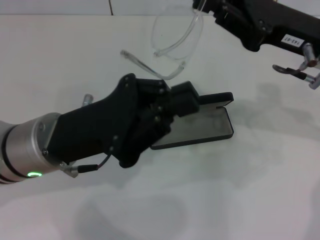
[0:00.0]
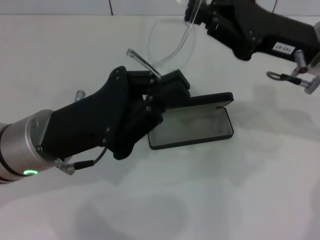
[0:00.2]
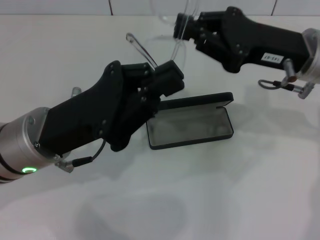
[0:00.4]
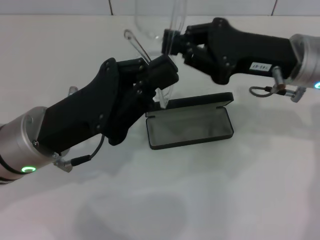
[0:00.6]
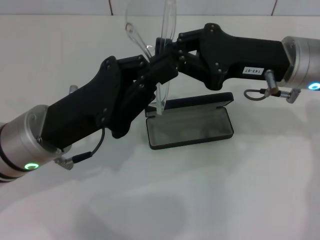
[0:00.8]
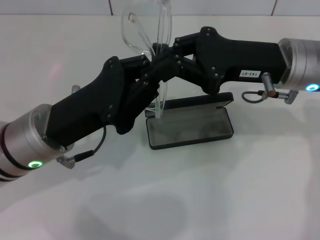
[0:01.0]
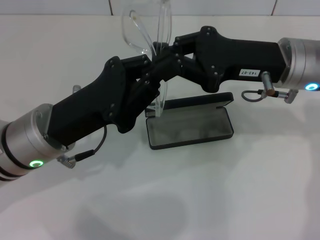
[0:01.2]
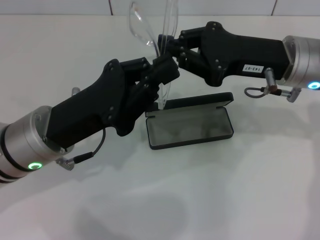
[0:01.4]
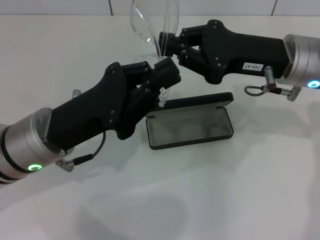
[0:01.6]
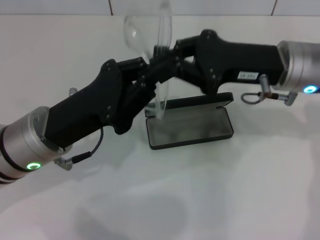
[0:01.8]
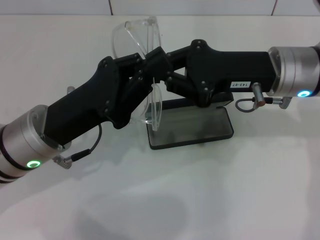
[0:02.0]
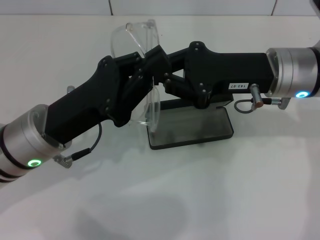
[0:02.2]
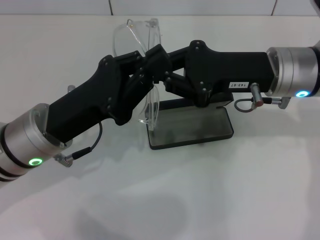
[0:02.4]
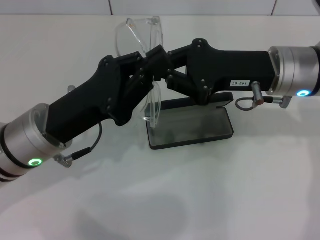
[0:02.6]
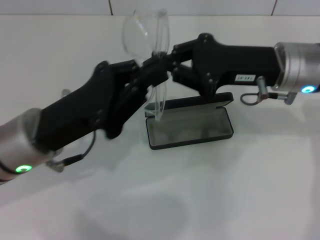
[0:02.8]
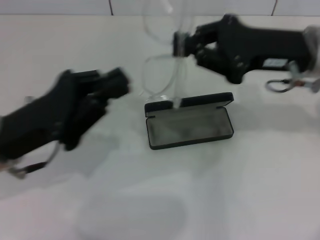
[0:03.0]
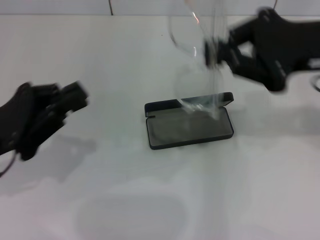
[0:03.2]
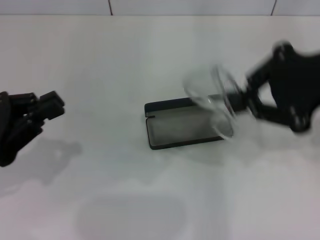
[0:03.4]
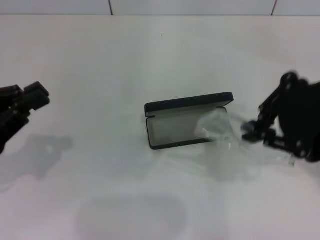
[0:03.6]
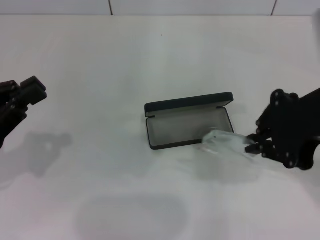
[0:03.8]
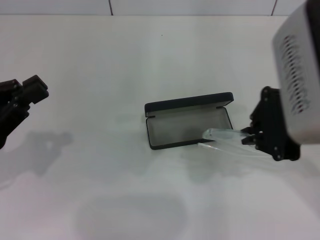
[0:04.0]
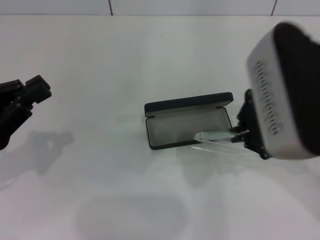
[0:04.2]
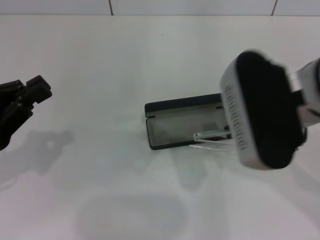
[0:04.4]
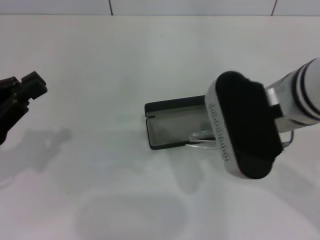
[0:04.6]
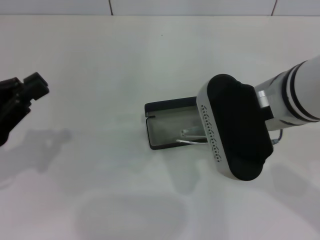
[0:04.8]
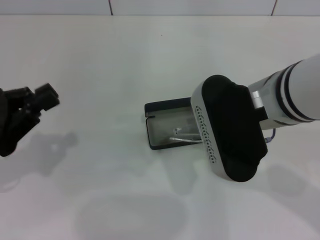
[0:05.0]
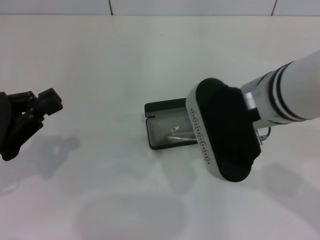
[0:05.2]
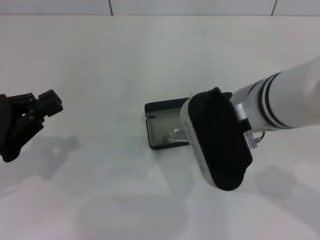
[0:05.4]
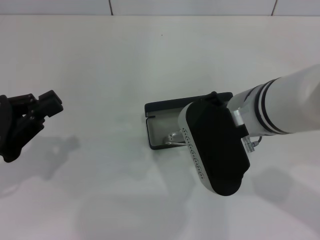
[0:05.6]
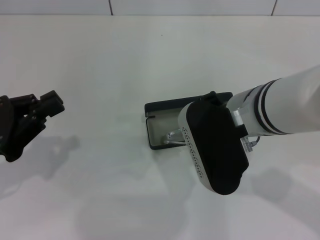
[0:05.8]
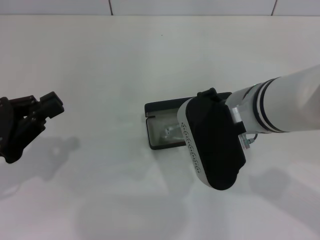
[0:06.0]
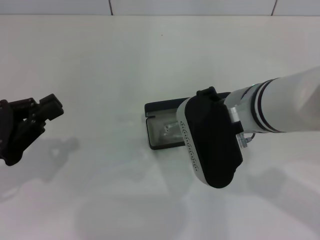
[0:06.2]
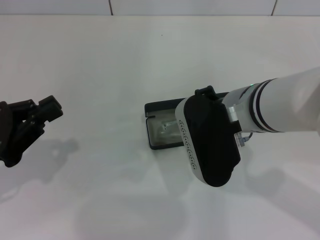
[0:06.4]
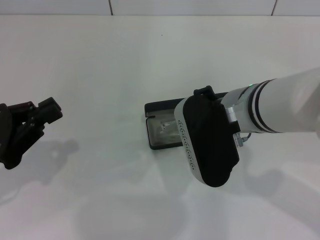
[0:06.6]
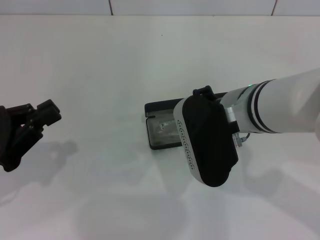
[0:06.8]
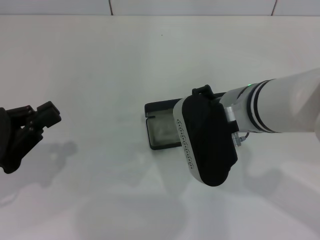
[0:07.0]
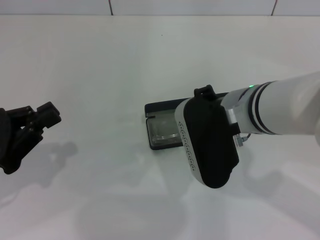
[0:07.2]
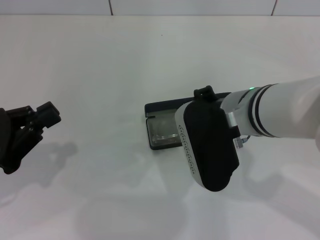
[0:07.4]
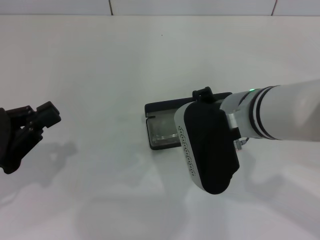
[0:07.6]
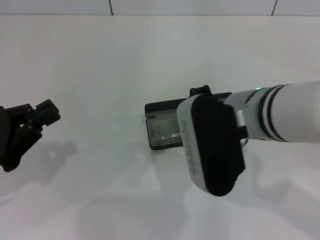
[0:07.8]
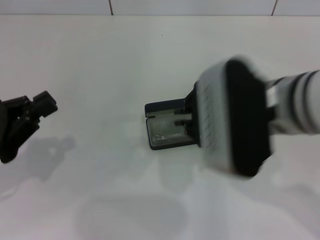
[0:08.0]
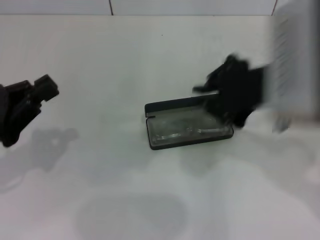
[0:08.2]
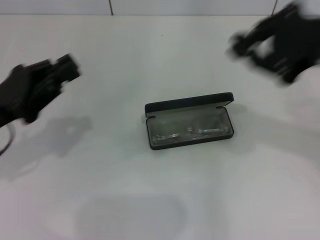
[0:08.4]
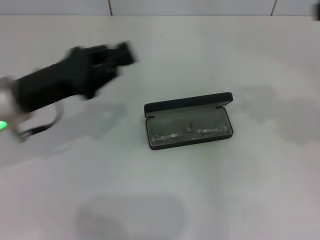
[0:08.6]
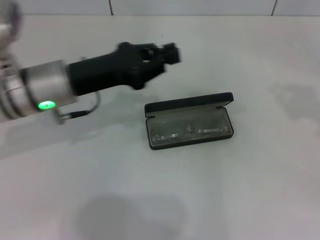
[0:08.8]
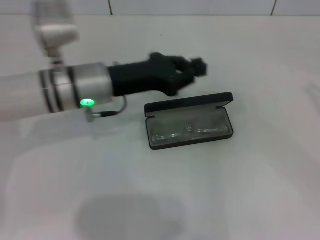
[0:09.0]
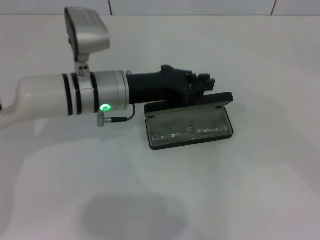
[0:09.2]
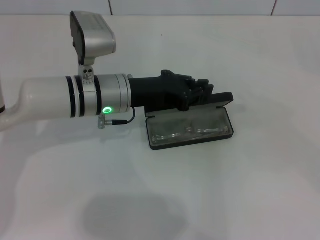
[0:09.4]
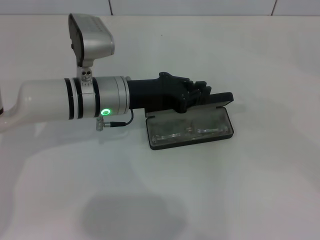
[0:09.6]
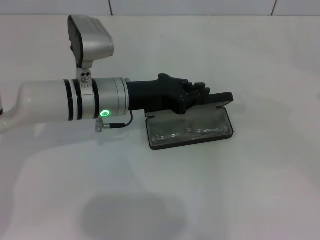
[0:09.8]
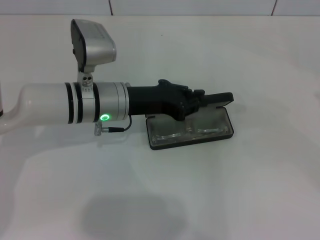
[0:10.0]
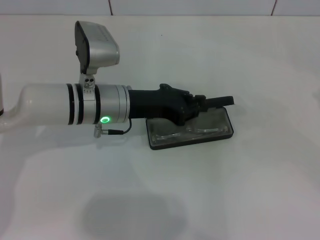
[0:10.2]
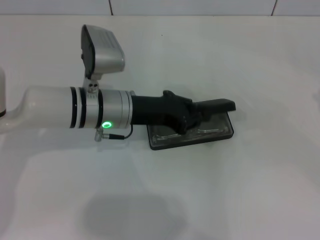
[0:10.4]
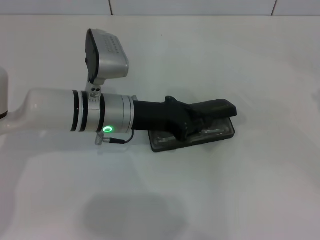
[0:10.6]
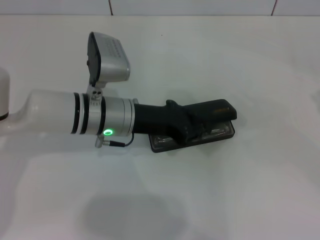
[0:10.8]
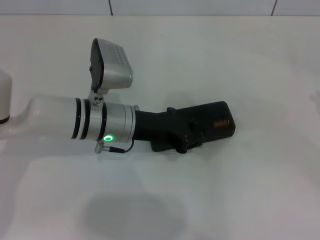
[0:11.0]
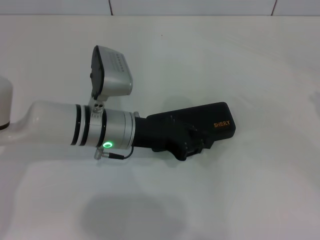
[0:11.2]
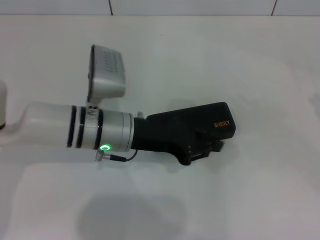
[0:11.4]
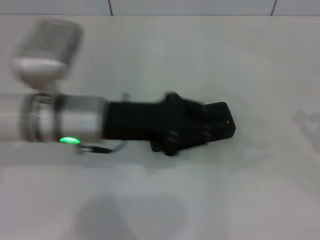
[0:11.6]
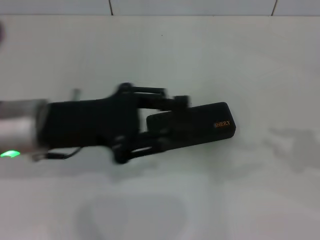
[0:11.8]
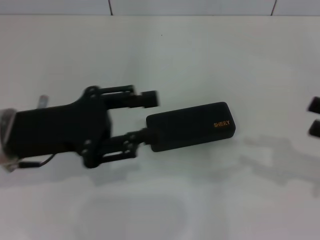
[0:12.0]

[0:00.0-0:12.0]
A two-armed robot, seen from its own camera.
Step, 0.0 to 2.4 s: Fold the frame with your left hand.
Step, 2.6 to 7.8 s: Put the glasses into the case with your right hand.
Step, 8.0 to 11.0 s: Close the glasses case with your left hand.
1.6 to 3.0 s: The left gripper is displaced to the left by about 5 cm.
3.0 to 4.4 s: The right gripper shifts about 10 cm backward and to the left. Meanwhile the left gripper heads to the left, covering approximately 10 cm.
4.4 to 6.0 s: The right gripper heads downward, covering approximately 5 cm.
6.0 to 7.6 s: The grippers stay close to where they were, moving slightly.
7.6 to 9.0 s: The left gripper moves to the right and forward, approximately 20 cm; the right gripper goes approximately 35 cm to the right.
9.0 to 10.4 s: The right gripper shifts roughly 5 cm downward.
10.4 to 12.0 s: The left gripper shifts some 15 cm to the left, backward and upward, and opens up, while the right gripper travels to the left by some 10 cm.

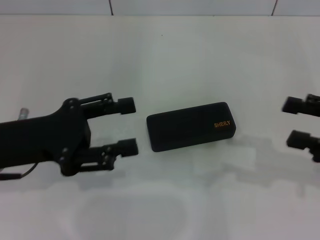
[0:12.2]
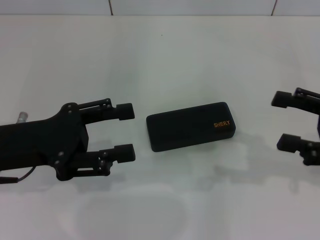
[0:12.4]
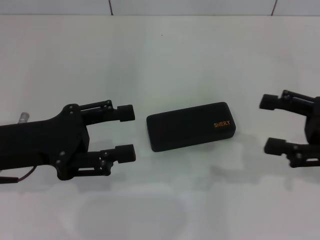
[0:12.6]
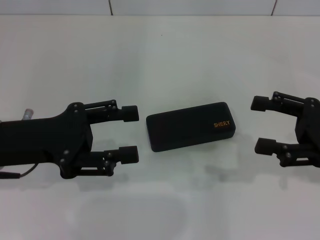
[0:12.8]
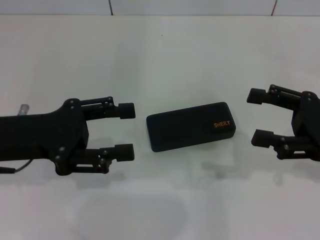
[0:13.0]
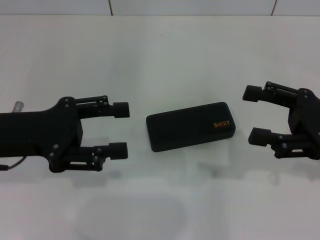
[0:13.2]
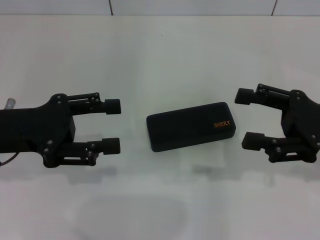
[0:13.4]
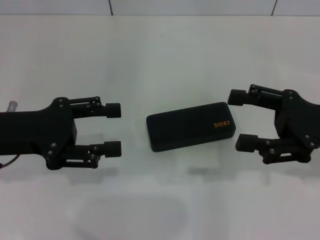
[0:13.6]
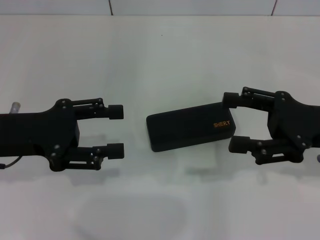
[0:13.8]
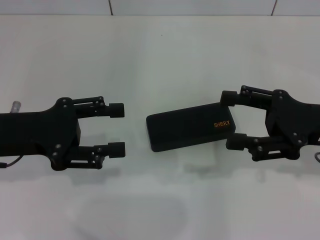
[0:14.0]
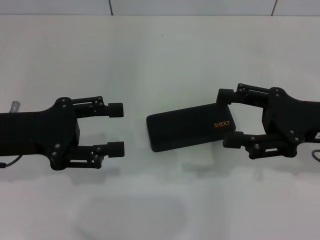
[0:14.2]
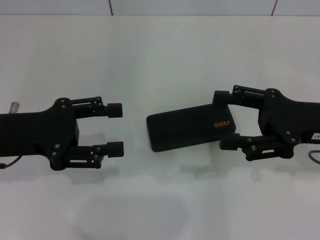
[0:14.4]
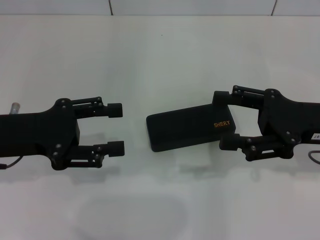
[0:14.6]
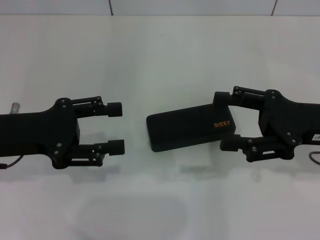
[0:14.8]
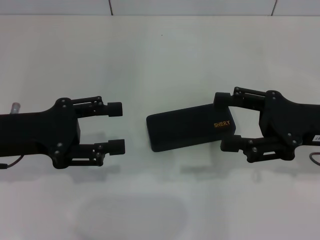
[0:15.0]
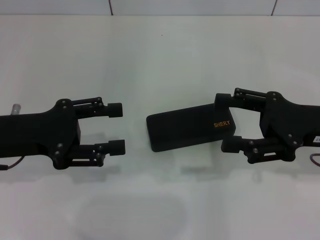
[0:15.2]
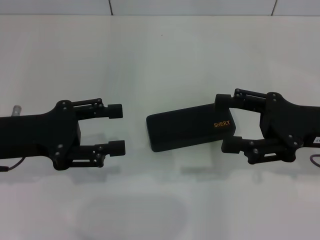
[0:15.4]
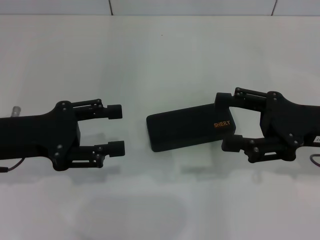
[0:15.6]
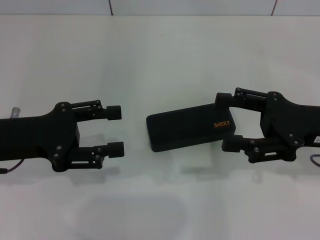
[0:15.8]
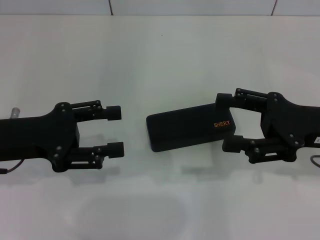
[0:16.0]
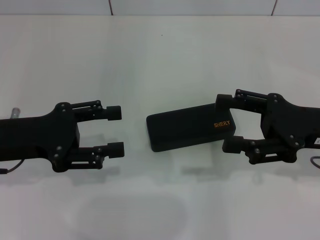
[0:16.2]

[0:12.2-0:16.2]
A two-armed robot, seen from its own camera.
12.2 to 13.6 s: The right gripper heads to the left, covering approximately 5 cm, and opens its fingers.
13.6 to 14.8 s: The grippers make only small movements.
14.8 to 16.2 s: Neither gripper changes place.

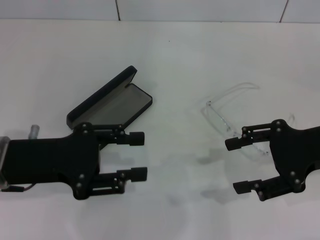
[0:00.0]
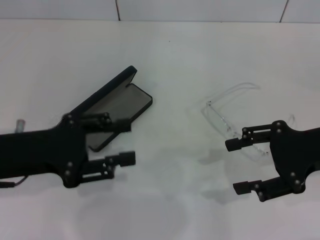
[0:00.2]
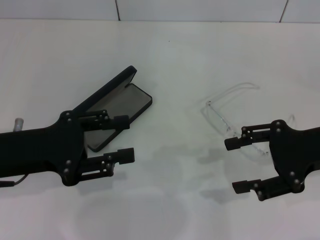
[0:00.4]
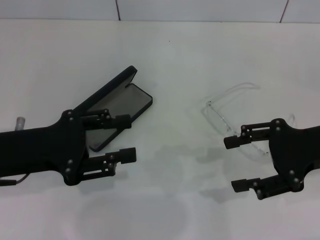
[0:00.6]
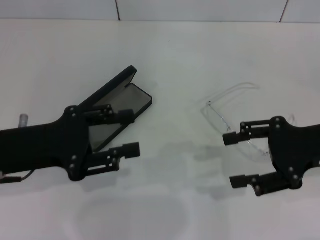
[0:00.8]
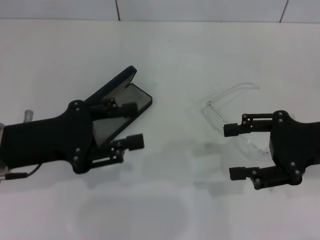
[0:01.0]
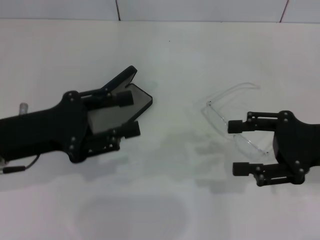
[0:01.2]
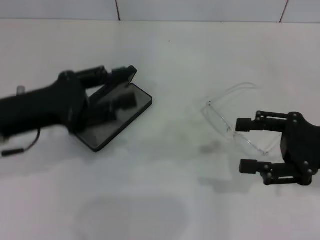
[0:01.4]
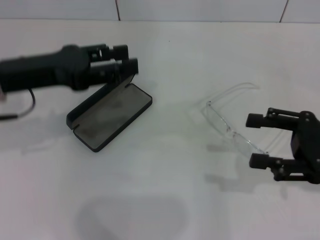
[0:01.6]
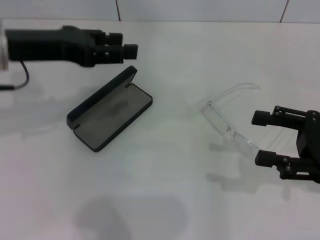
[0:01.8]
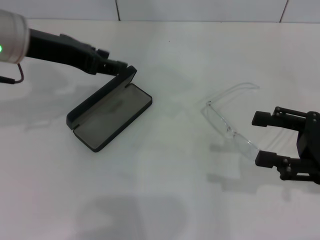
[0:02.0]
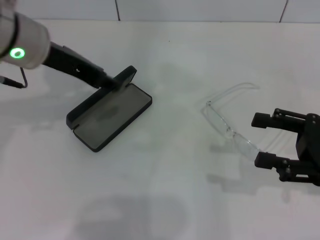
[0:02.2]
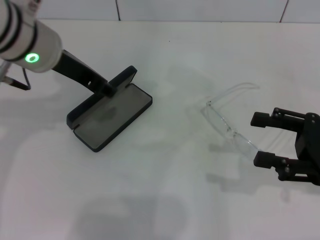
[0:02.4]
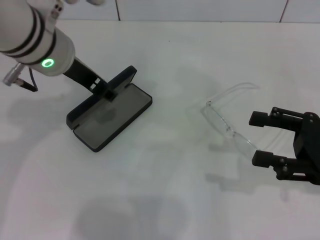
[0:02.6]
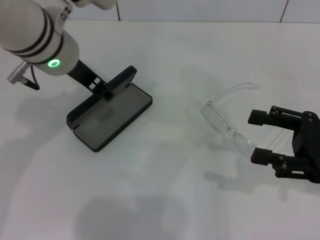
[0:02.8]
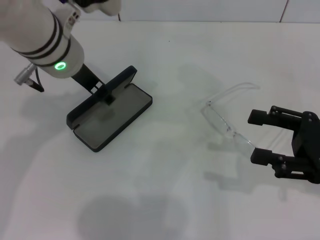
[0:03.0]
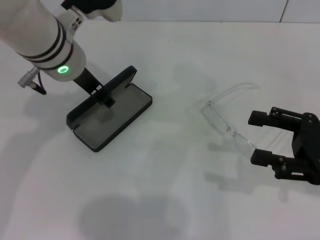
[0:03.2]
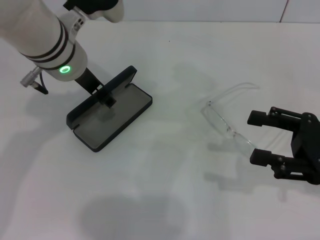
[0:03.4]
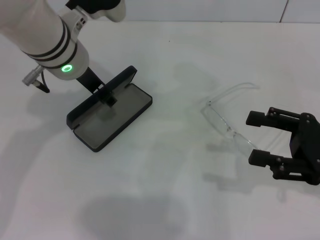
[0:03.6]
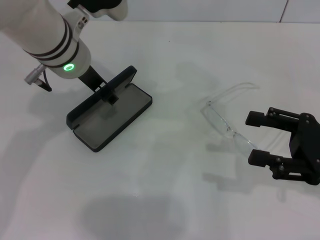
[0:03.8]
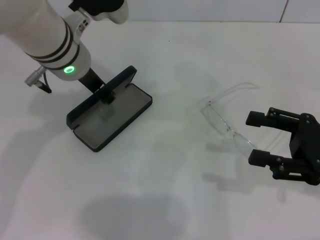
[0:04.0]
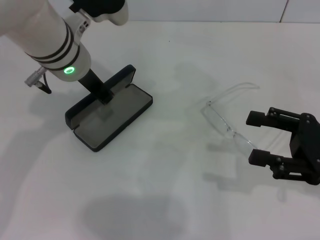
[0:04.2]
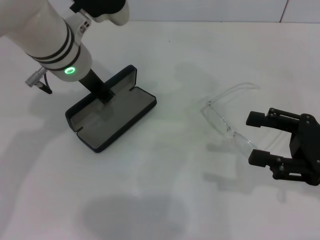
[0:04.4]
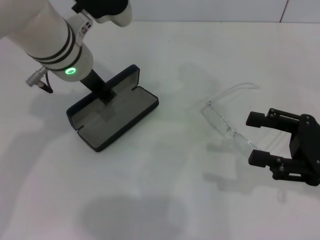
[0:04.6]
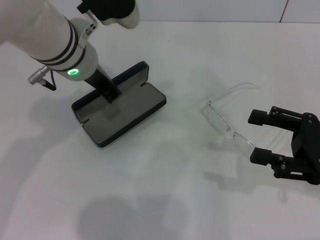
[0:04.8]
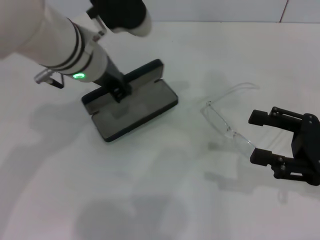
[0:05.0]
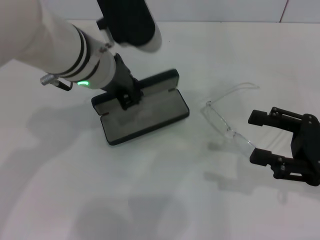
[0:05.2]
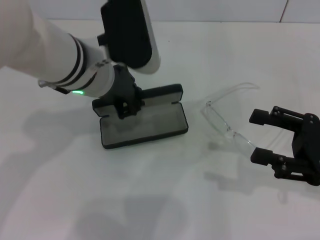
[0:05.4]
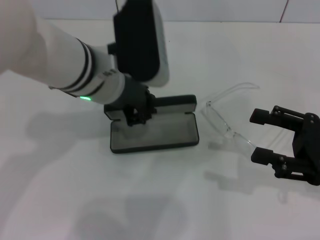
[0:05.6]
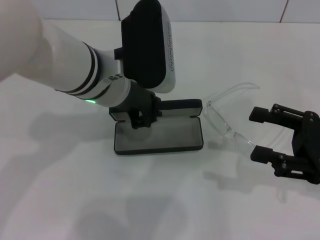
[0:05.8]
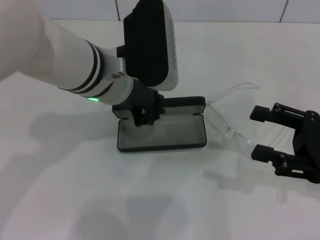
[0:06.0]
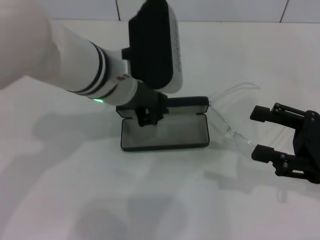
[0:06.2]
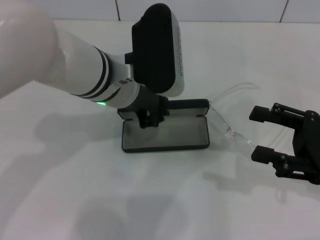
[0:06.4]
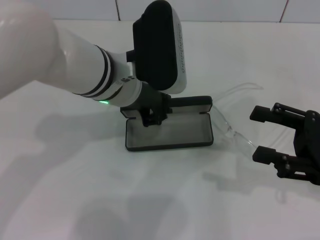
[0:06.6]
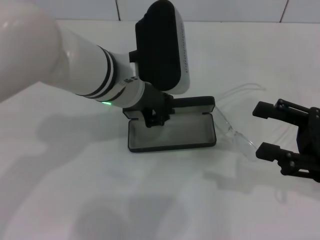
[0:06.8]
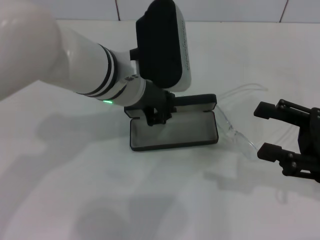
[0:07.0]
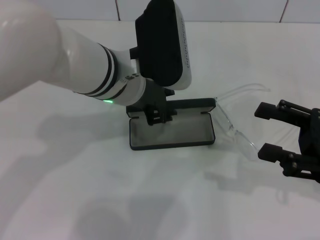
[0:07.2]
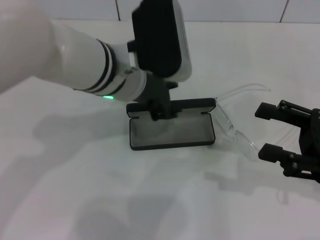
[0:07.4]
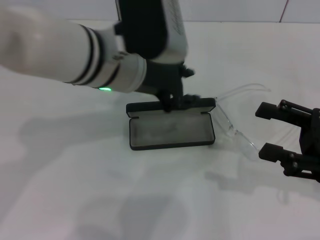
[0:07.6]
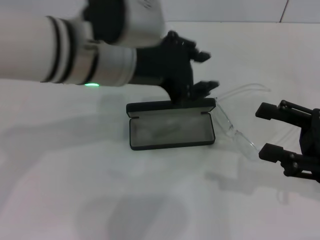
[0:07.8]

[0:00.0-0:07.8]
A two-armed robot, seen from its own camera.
Step, 0.0 to 4.4 s: Grab the glasses case with your left hand.
Step, 4.6 to 7.0 s: Place the glasses case in the center of the table with your left hand.
0.0 to 1.6 s: The right gripper moves approximately 5 cm. The left gripper travels forward by approximately 5 cm.
1.6 to 3.2 s: The left gripper goes about 15 cm to the right and forward.
3.2 to 4.6 s: The left gripper closes up.
4.6 to 6.2 s: The left gripper moves approximately 5 cm.
6.2 to 7.8 s: The left gripper travels upward by about 5 cm.
